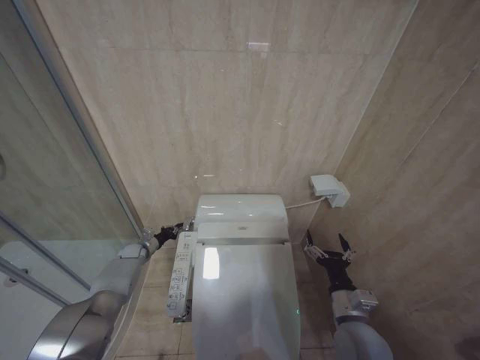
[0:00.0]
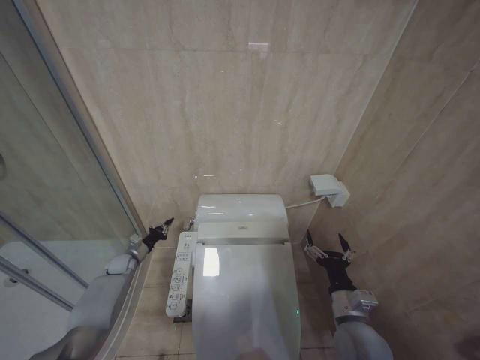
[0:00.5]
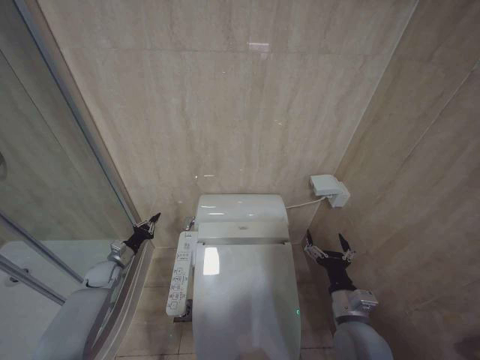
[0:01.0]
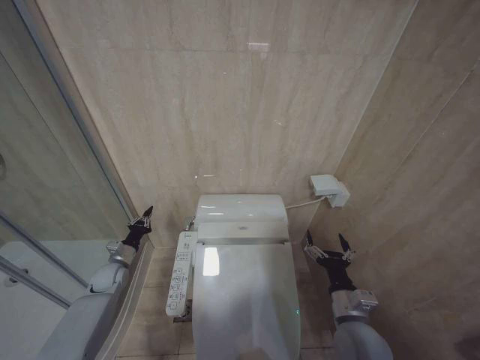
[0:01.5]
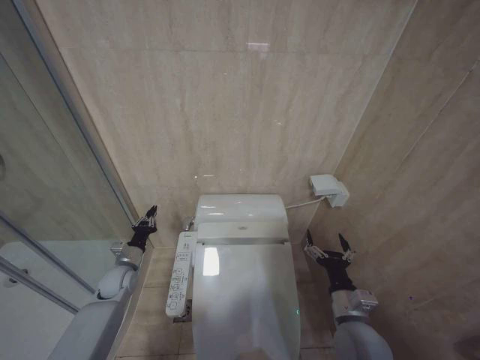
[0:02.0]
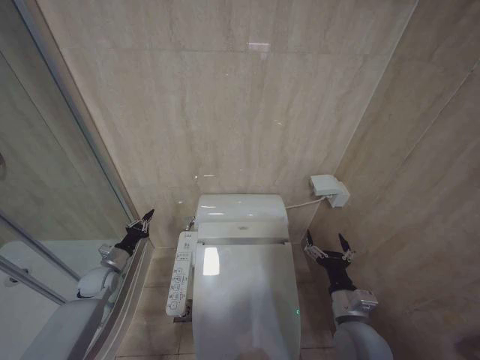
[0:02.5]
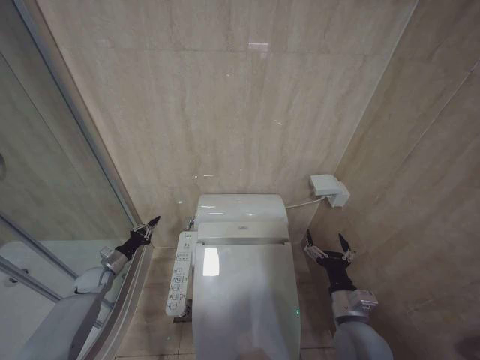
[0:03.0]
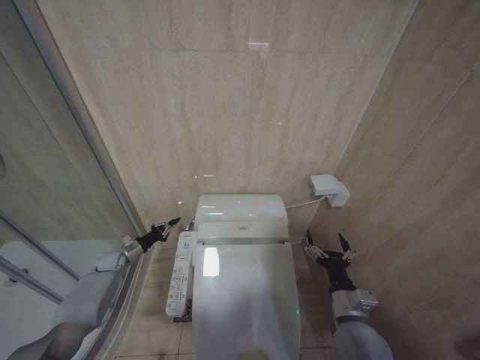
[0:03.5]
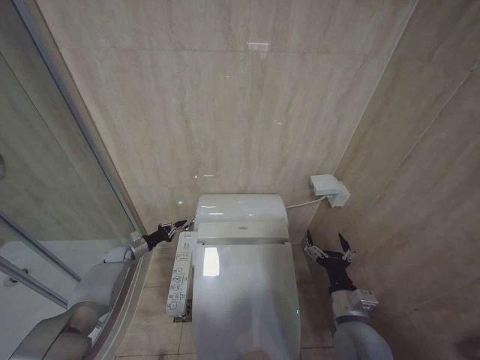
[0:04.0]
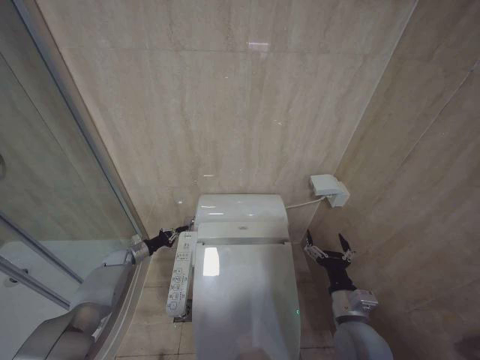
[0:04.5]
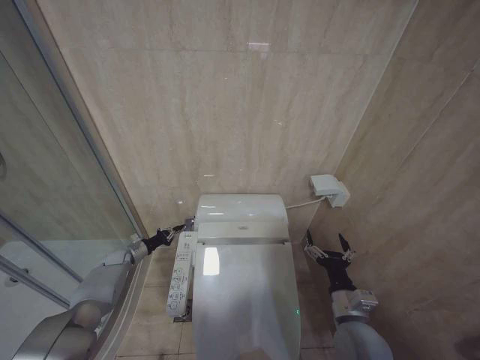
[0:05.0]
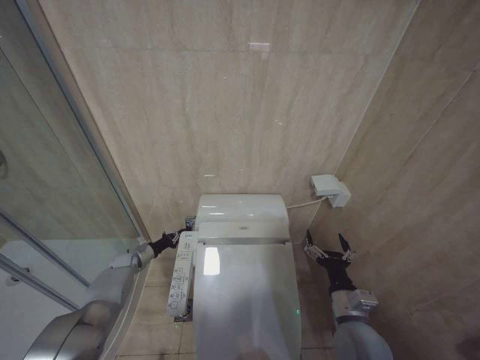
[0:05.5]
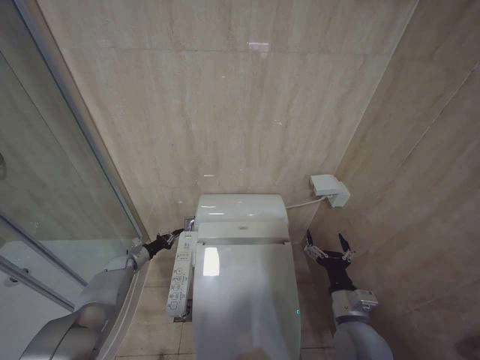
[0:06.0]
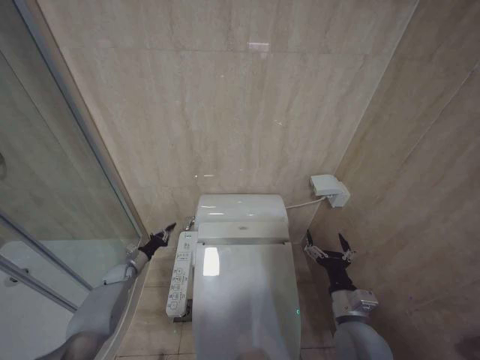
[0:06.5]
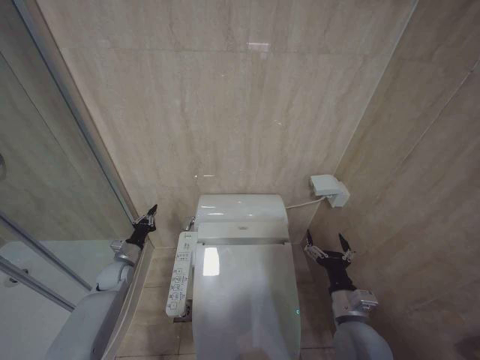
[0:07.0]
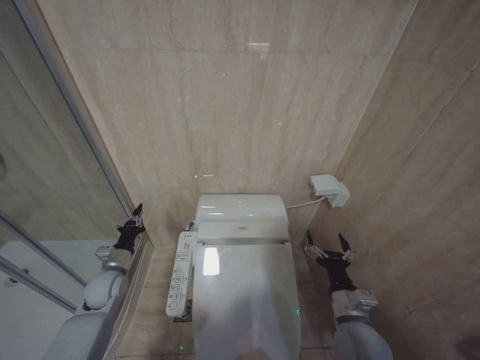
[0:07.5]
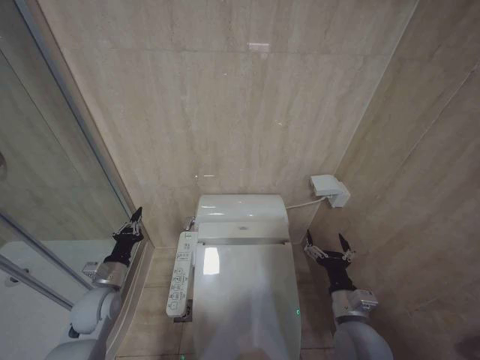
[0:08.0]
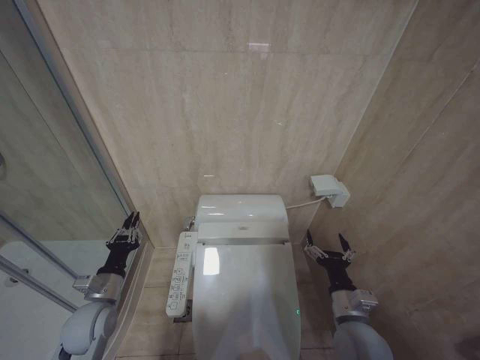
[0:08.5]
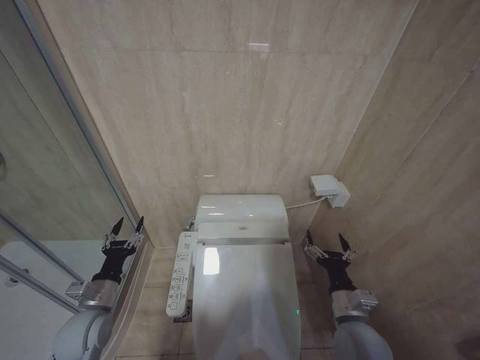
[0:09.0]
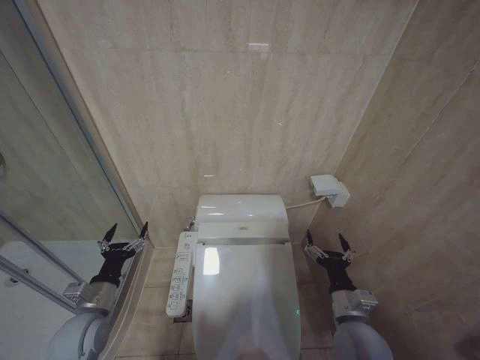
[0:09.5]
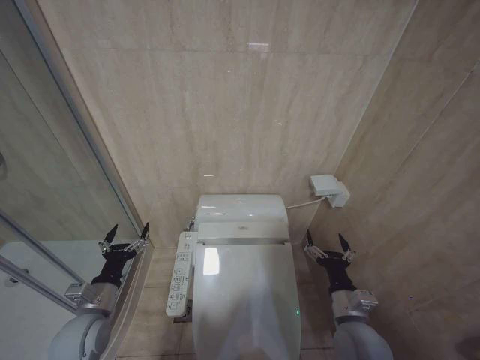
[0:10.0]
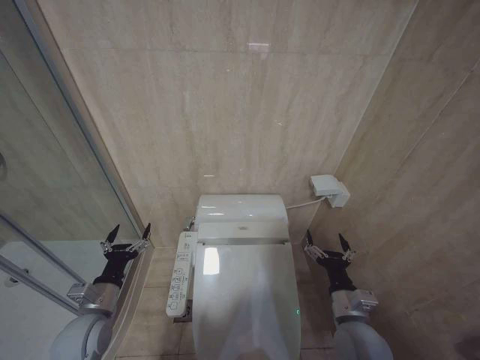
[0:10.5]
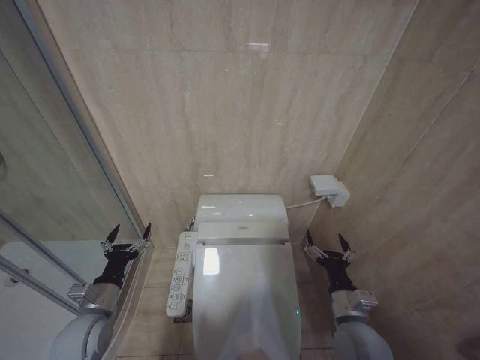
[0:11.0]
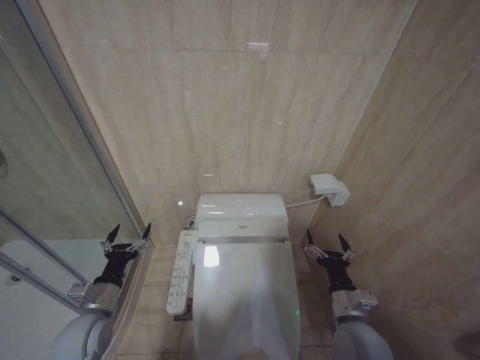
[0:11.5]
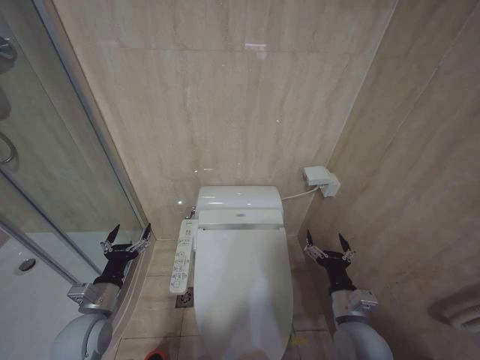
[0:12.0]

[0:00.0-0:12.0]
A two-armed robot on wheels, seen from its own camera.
Task of the whole recording: Open the toilet lid, clean the toilet bowl with a toilet brush, close the toilet lid, and flush.
0:00.0 to 0:02.0: The left gripper heads backward and upward, covering roughly 15 cm.
0:02.0 to 0:04.0: The left gripper heads forward, to the left and downward, covering about 15 cm.
0:04.0 to 0:06.0: The grippers move only a little.
0:06.0 to 0:08.0: The left gripper travels backward and upward by roughly 25 cm.
0:08.0 to 0:10.0: The left gripper is displaced backward by about 5 cm, and opens up.
0:10.0 to 0:12.0: The two grippers keep their place.

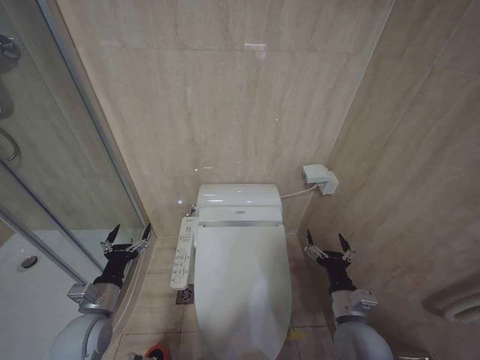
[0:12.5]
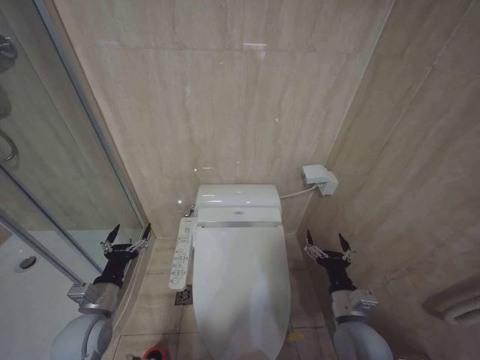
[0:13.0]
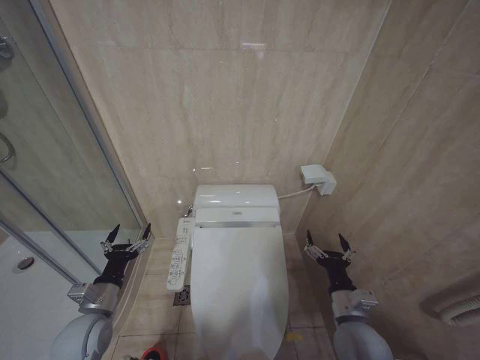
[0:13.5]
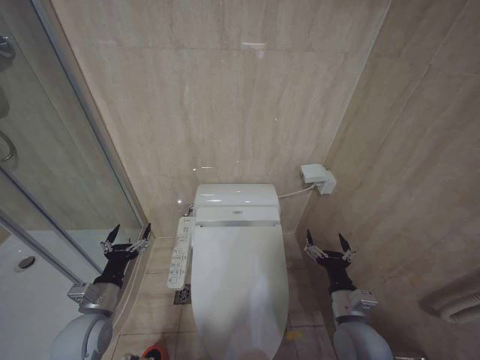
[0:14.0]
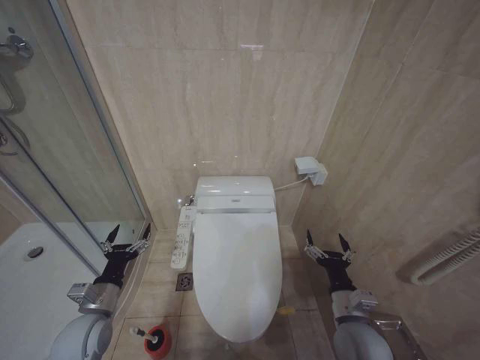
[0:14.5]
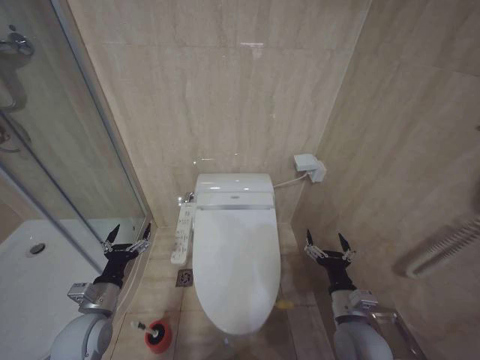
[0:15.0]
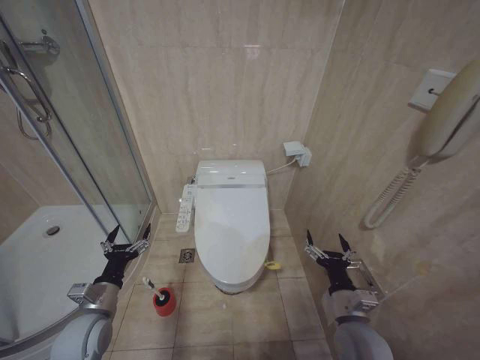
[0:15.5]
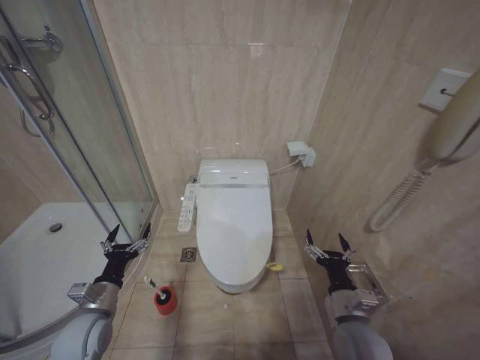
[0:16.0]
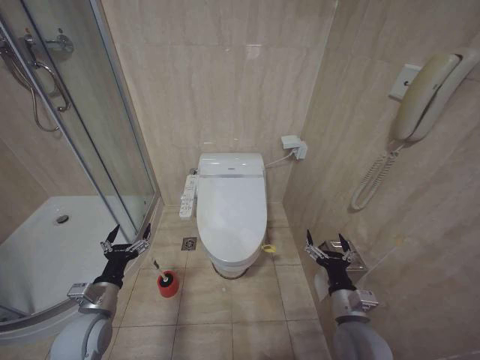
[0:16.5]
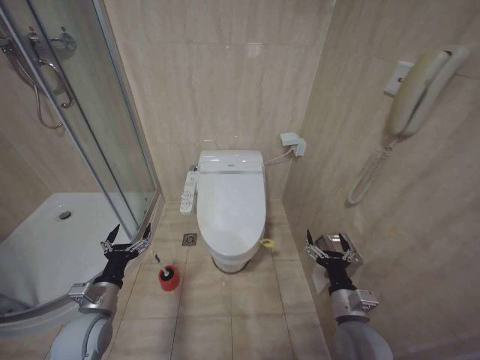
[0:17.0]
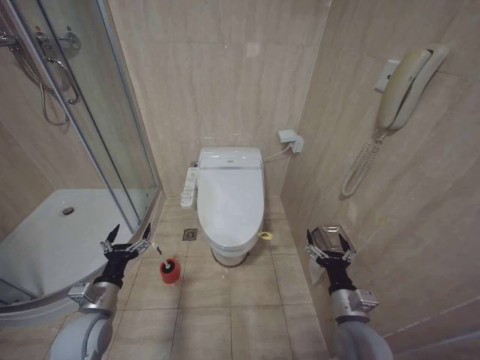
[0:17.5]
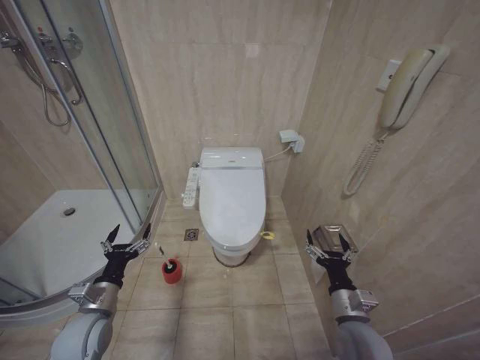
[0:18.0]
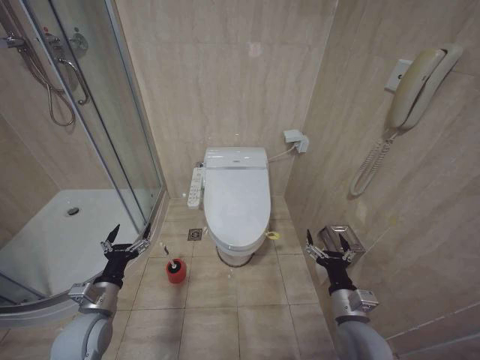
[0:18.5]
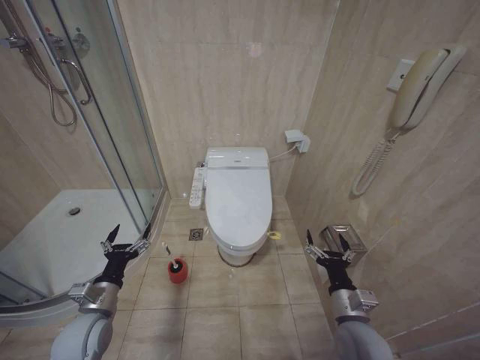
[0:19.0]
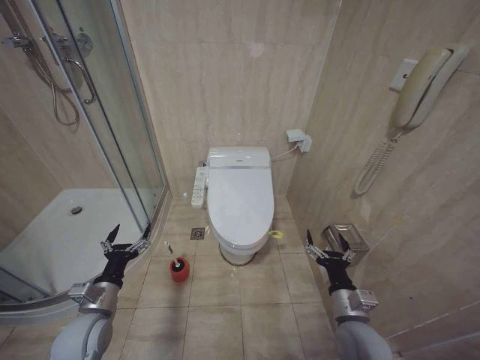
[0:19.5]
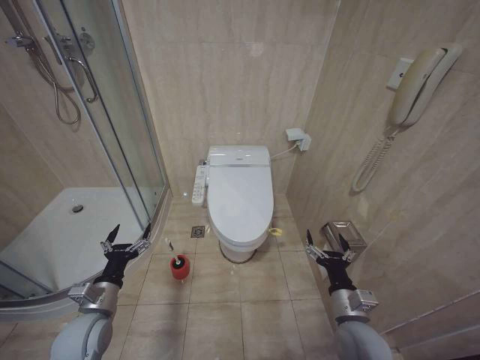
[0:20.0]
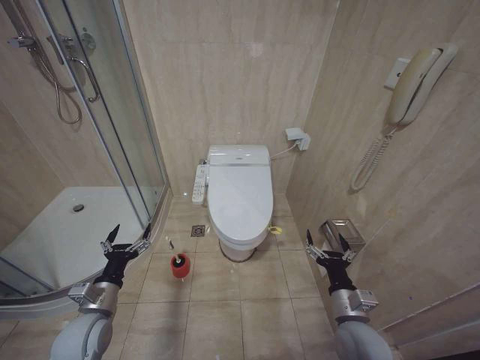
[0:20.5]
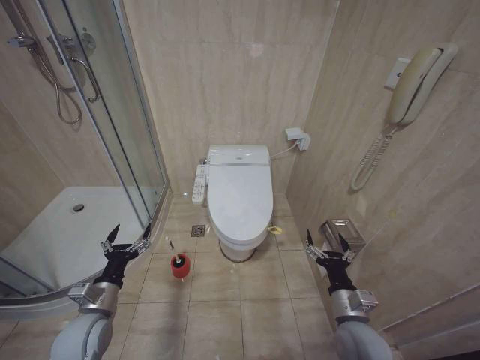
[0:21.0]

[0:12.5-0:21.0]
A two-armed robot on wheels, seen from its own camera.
Task of the whole recording: Open the toilet lid, clean the toilet bowl with a toilet brush, close the toilet lid, and flush.
0:12.5 to 0:14.5: Neither gripper changes place.
0:16.5 to 0:21.0: Both grippers stay put.
